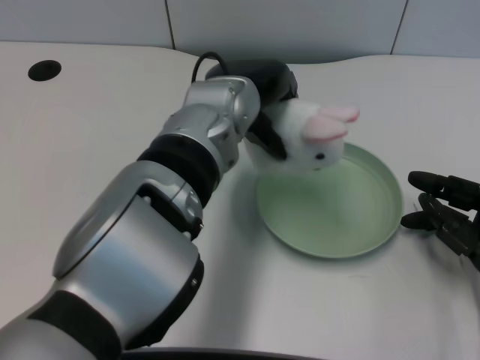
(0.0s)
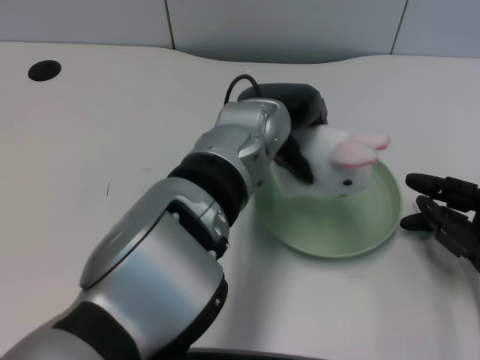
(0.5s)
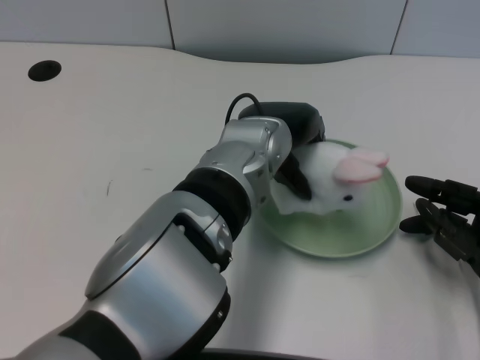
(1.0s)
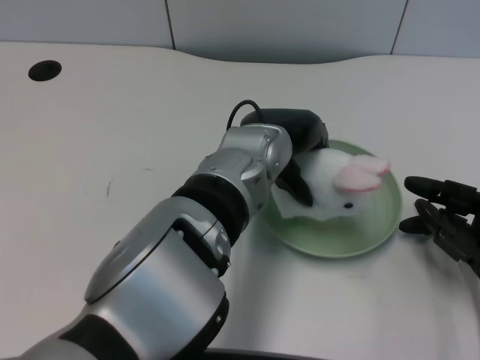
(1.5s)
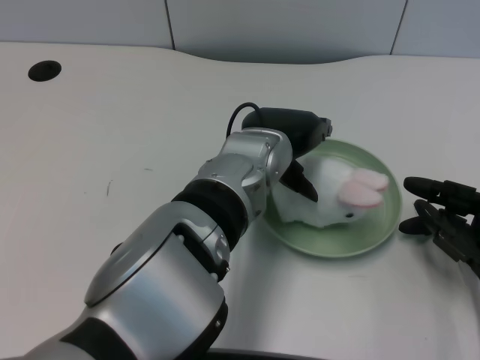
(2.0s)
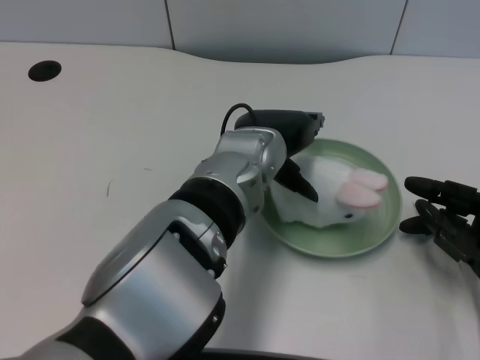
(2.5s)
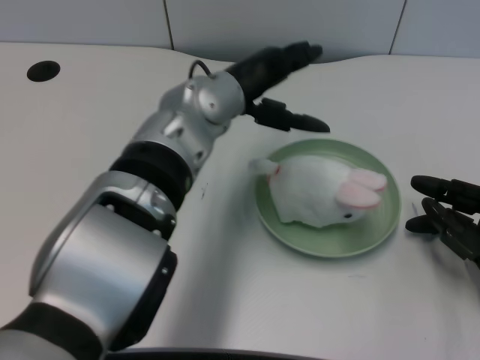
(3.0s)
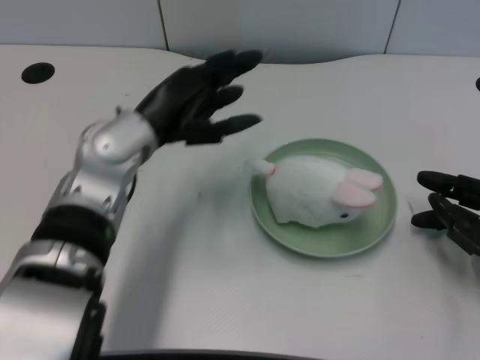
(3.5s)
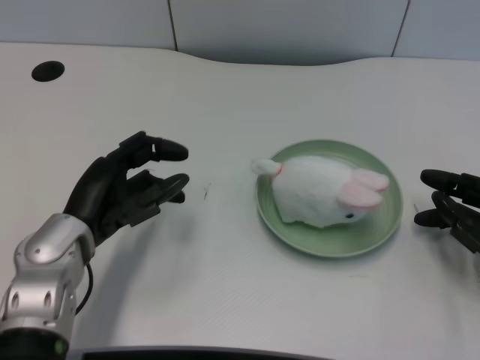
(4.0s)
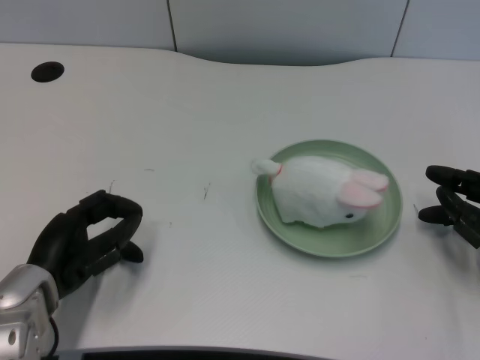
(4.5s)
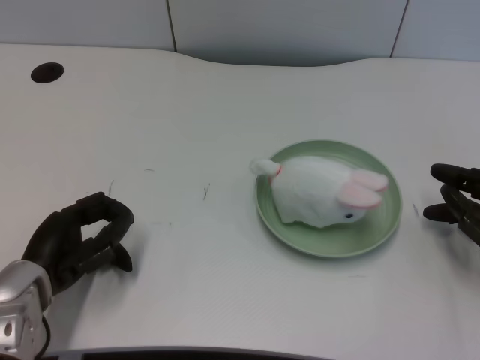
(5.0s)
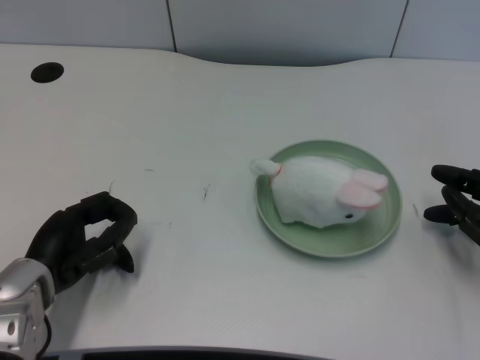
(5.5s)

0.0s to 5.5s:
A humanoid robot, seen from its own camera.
Task of the whole recording: pick up the rabbit doll from the table and place it on the plate.
Step, 0.0s to 2.5s: Place the rabbit doll into the plate with the left gripper.
0.0s to 2.0s: The left hand moves approximately 5 cm.
2.0s to 3.5s: The left hand is displaced to the left by about 15 cm.
3.5s to 5.5s: The left hand goes approximately 15 cm downward, to the left and backward.
